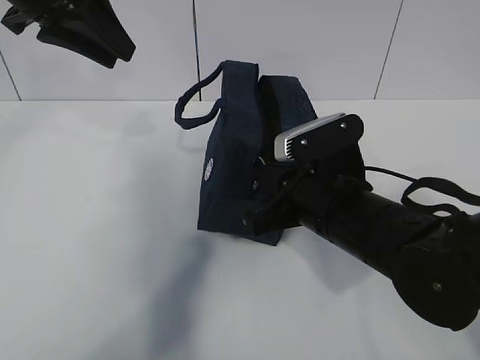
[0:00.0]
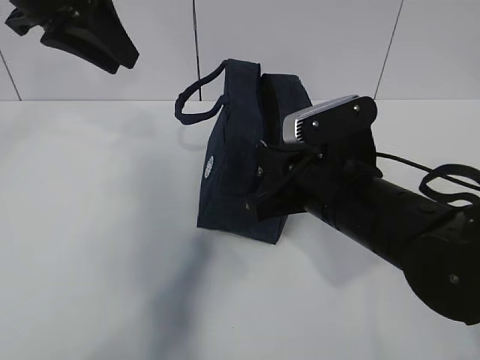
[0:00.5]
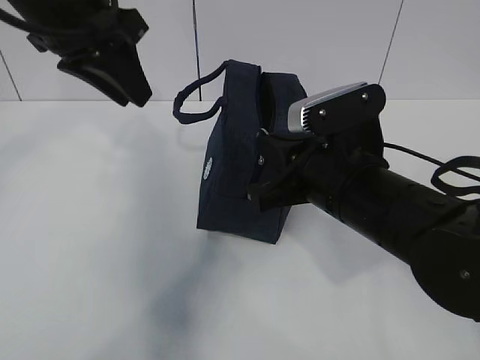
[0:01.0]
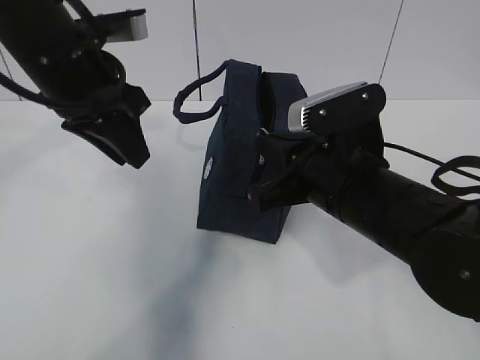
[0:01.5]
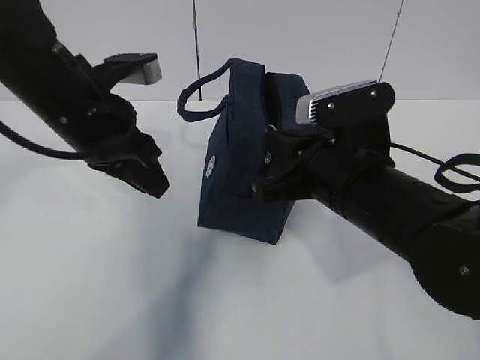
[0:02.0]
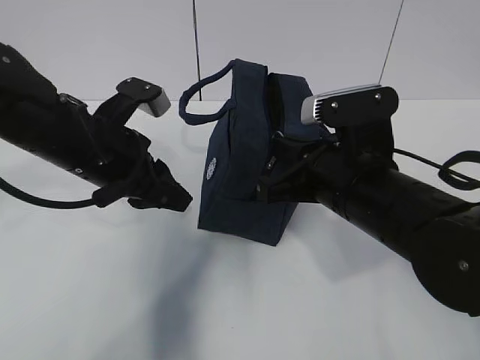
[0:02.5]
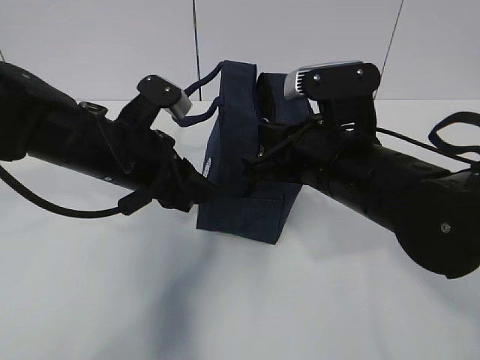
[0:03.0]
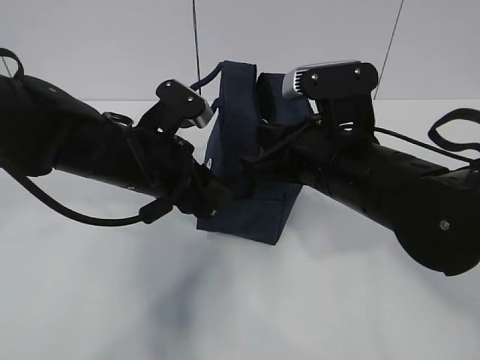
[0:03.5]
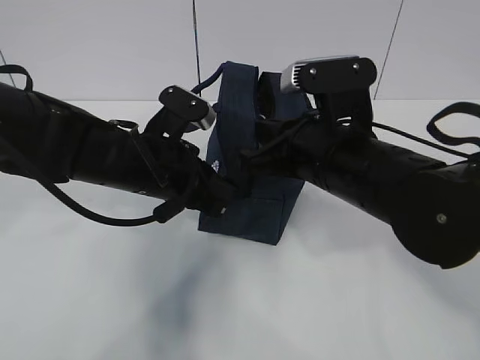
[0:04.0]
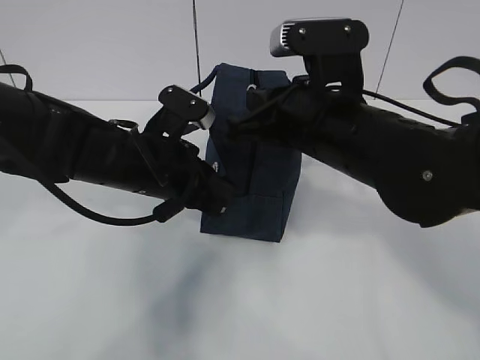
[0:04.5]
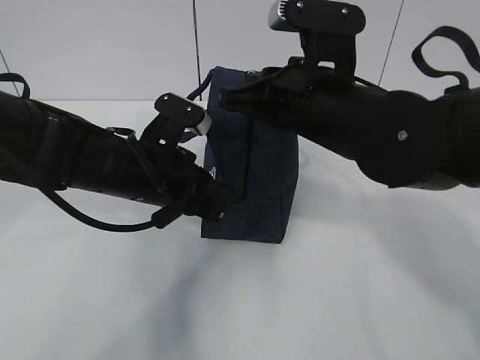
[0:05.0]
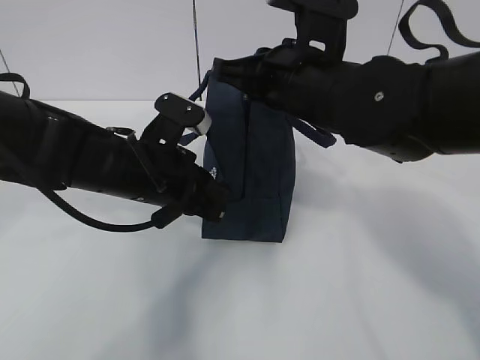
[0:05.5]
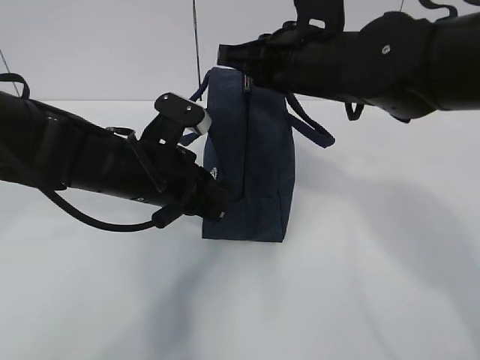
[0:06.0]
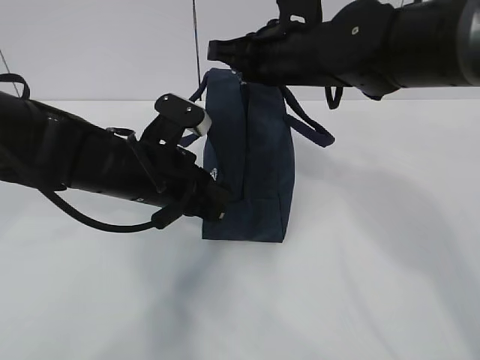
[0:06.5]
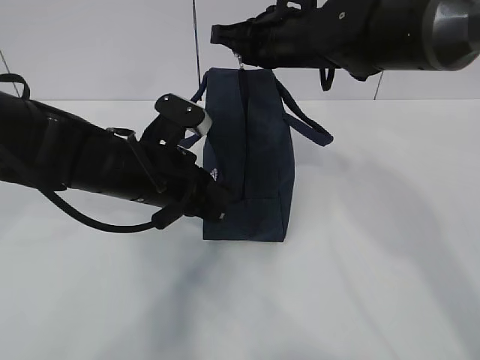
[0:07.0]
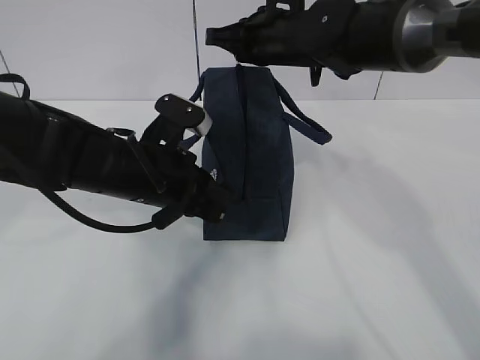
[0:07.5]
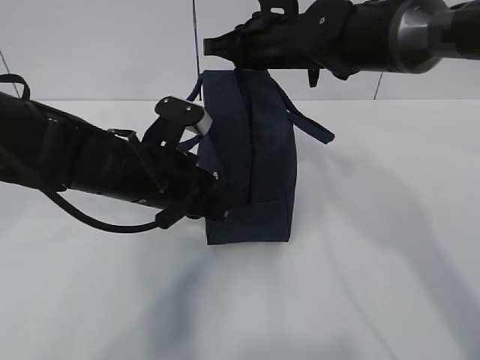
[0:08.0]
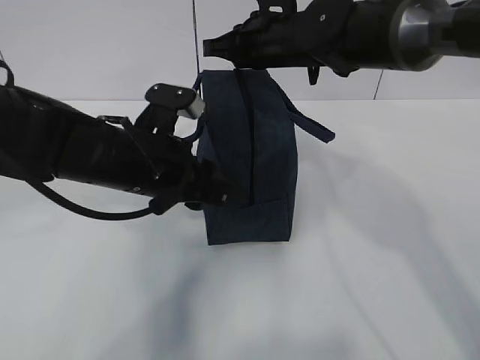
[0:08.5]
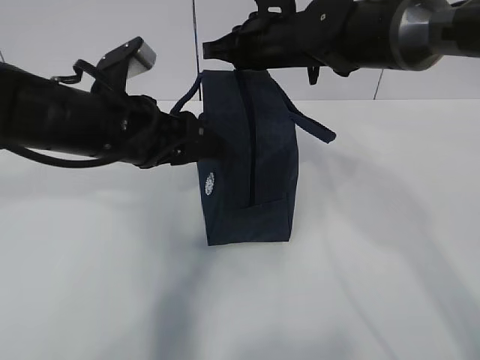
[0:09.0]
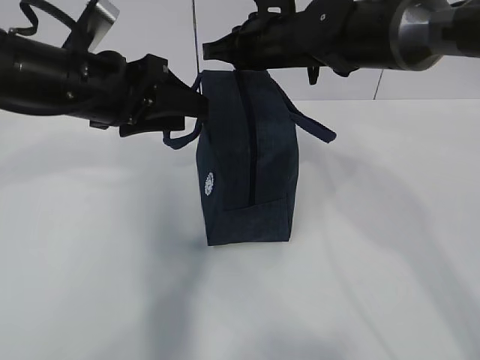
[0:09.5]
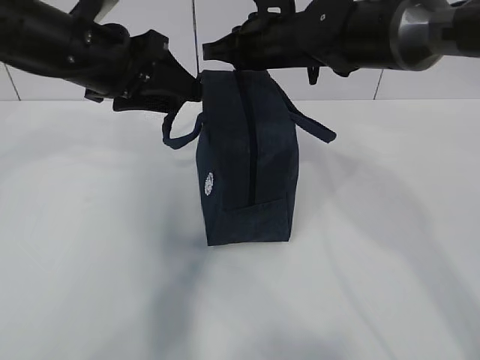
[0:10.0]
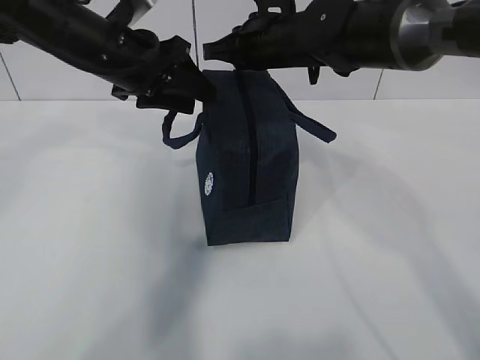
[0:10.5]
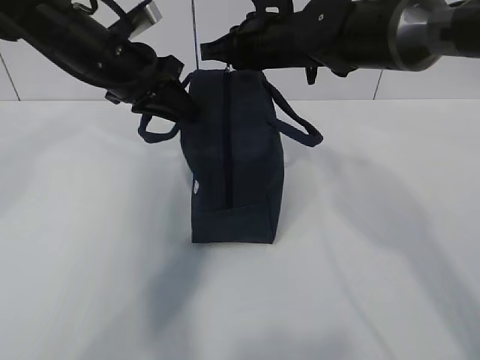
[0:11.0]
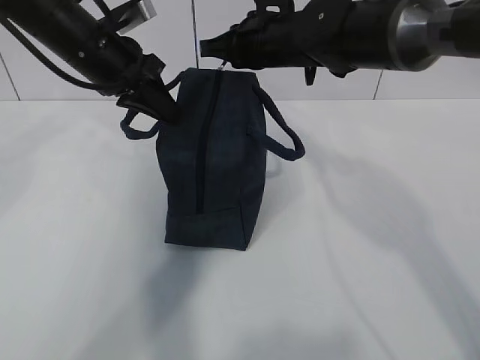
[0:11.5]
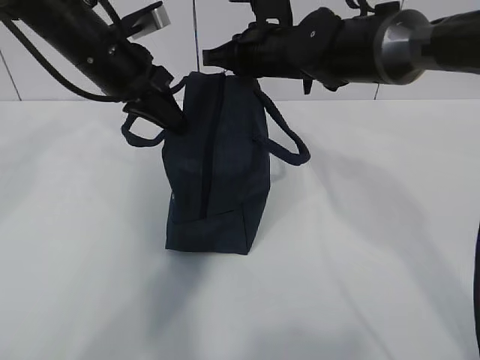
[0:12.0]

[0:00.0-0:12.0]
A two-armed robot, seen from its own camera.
Step, 0:00.0 to 0:05.0: Pull the zipper with your right hand.
0:00.0 to 0:02.0: The left gripper shifts approximately 10 cm downward.
0:02.0 to 0:04.0: The left gripper moves downward and to the right, approximately 10 cm, and closes.
0:04.0 to 0:06.0: The right gripper shifts some 10 cm forward and upward.
0:06.0 to 0:08.0: The right gripper moves forward, about 10 cm.
0:08.0 to 0:10.0: The left gripper travels upward, to the left and forward by about 15 cm, and opens its fingers.
0:10.0 to 0:12.0: The left gripper shifts some 5 cm forward, and closes its fingers.

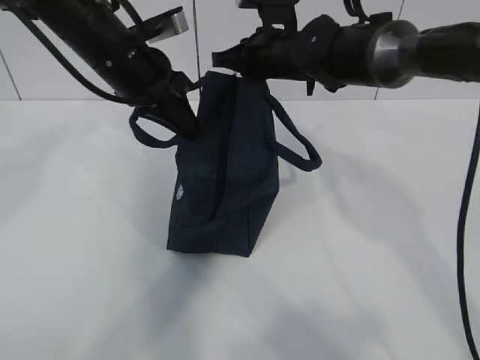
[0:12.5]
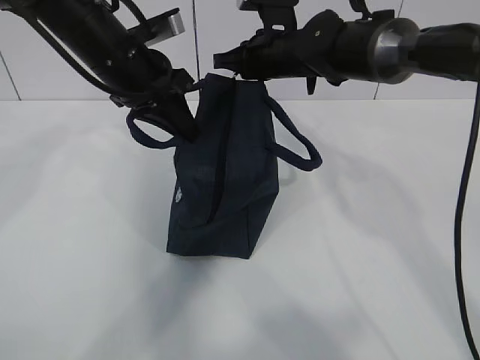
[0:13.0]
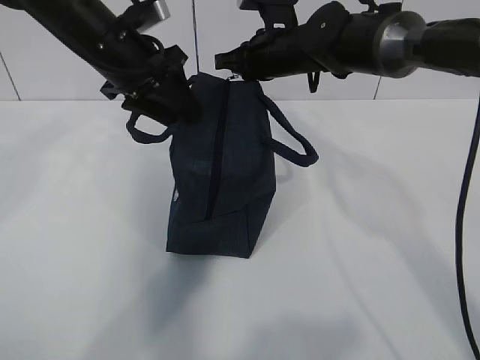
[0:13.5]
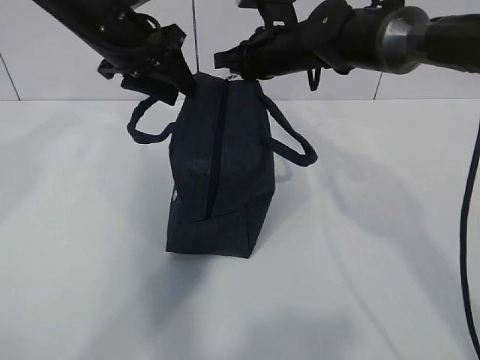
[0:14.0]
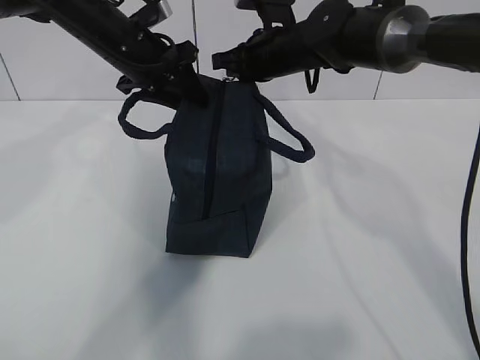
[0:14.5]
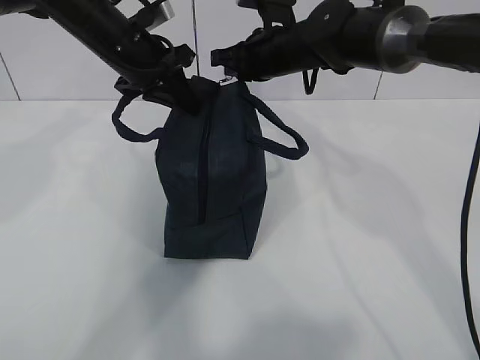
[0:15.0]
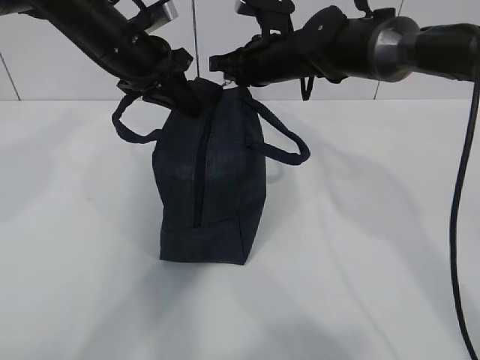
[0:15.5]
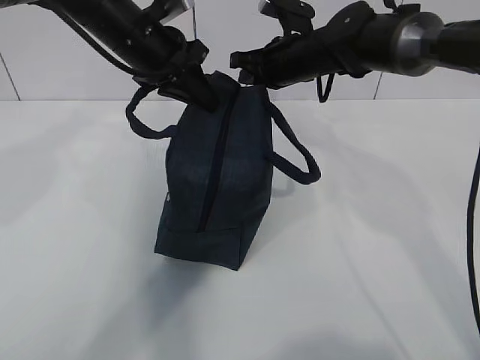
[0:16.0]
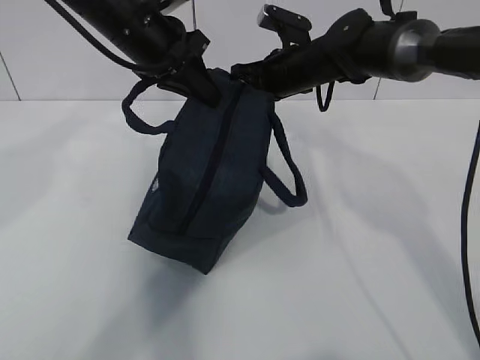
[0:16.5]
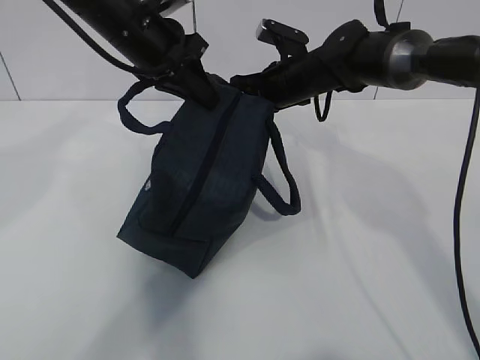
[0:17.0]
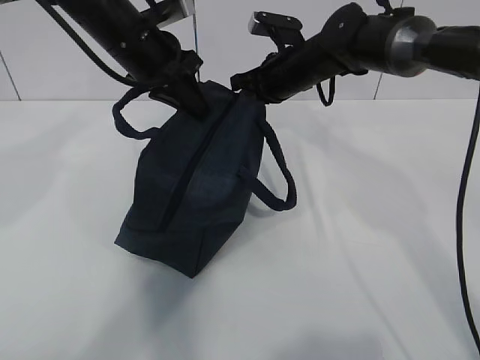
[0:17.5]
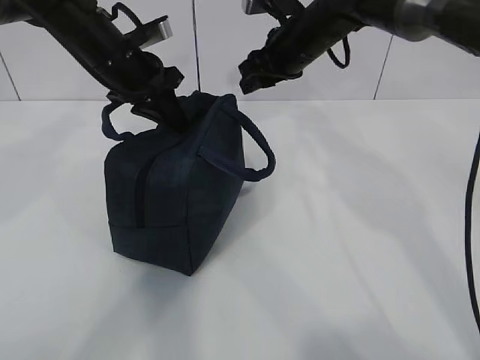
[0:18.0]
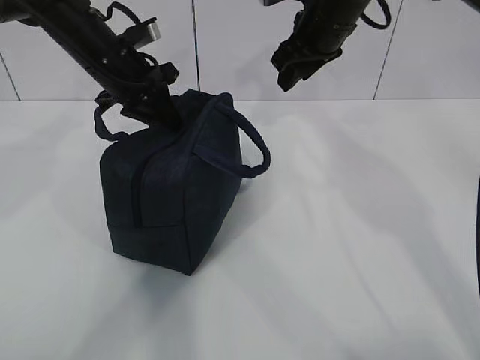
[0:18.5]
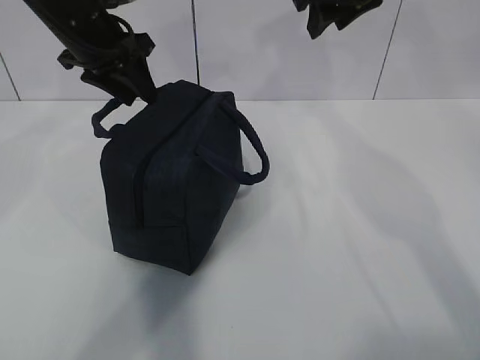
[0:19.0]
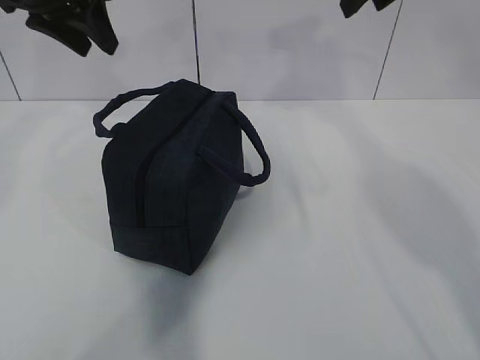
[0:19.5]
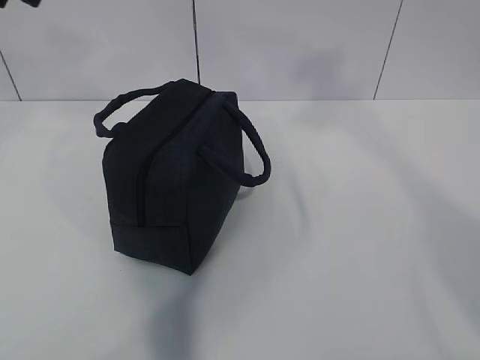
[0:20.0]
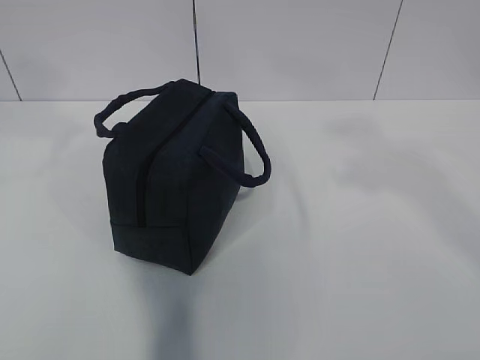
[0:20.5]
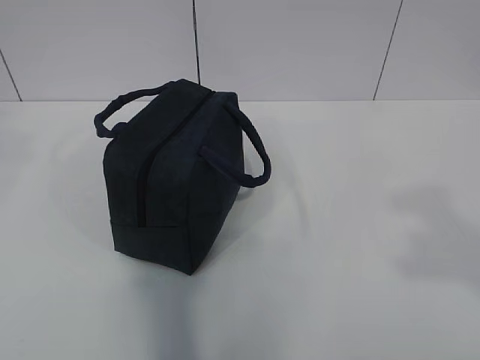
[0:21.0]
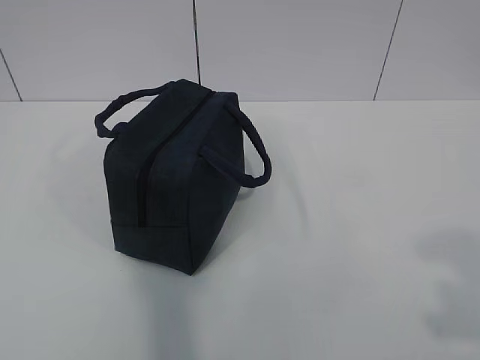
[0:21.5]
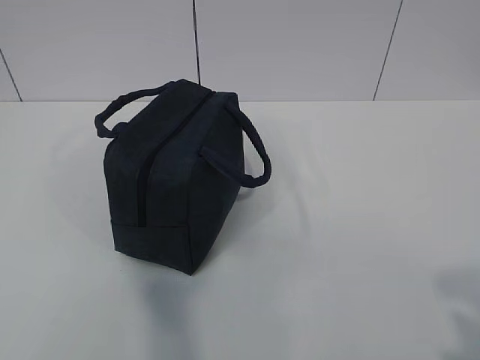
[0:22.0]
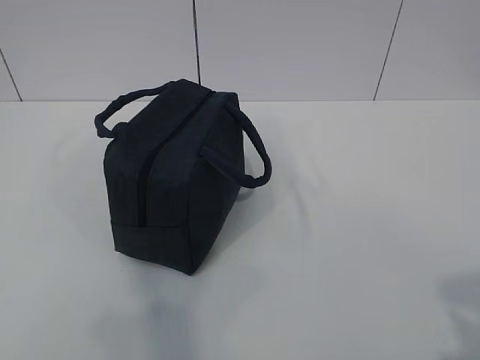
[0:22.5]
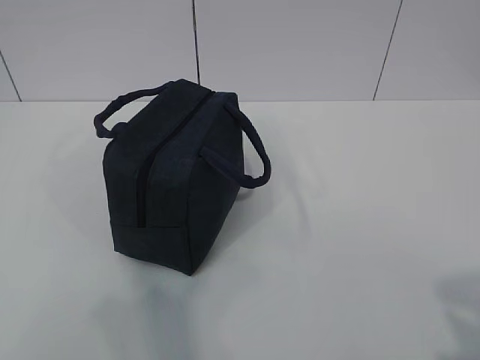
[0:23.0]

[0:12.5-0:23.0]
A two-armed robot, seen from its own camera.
0:12.5 to 0:14.5: The left gripper is displaced forward by about 5 cm, and opens its fingers.
0:14.5 to 0:16.5: The left gripper changes place by about 5 cm, and closes up.
0:16.5 to 0:19.0: The right gripper shifts approximately 15 cm upward, and opens. The left gripper shifts about 5 cm to the left, and opens.
0:19.0 to 0:21.0: The left gripper travels backward and upward by some 40 cm. Meanwhile the right gripper shifts roughly 40 cm backward.
0:21.0 to 0:23.0: The right gripper shifts about 10 cm downward.

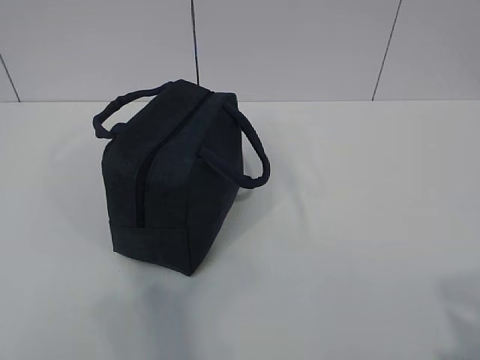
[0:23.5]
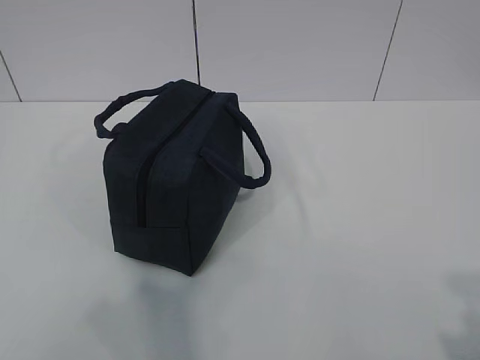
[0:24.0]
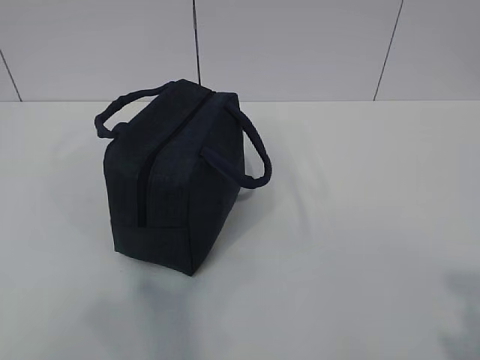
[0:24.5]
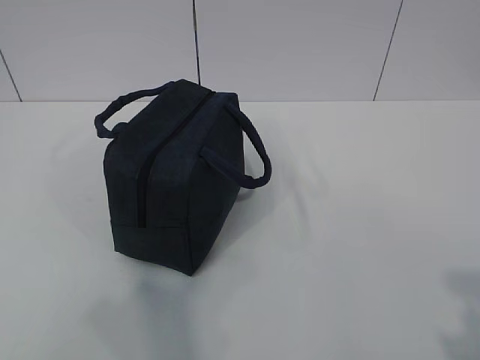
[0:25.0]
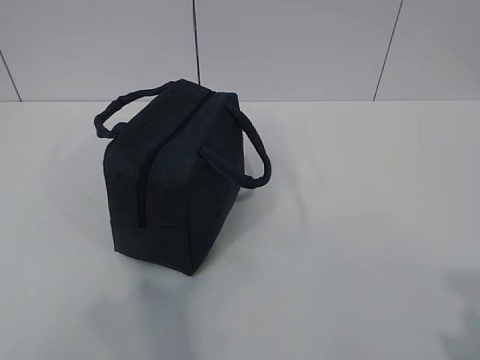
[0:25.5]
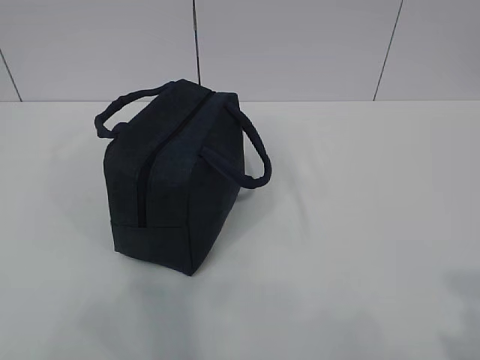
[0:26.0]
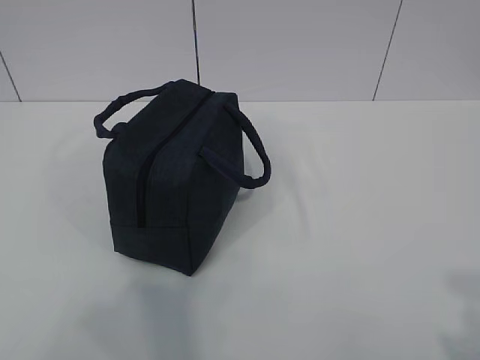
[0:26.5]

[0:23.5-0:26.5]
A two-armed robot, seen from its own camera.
0:23.5 to 0:25.0: The grippers stay close to where they were, moving slightly.
